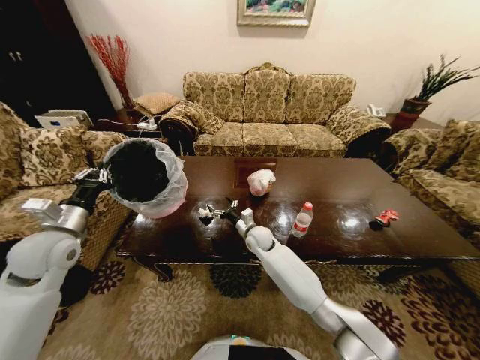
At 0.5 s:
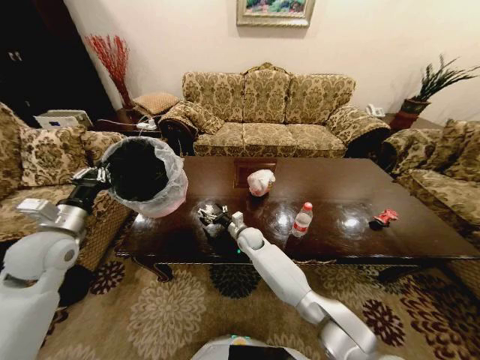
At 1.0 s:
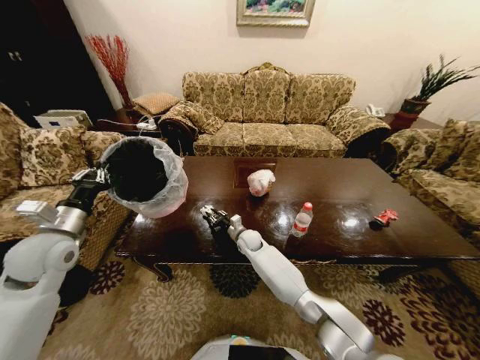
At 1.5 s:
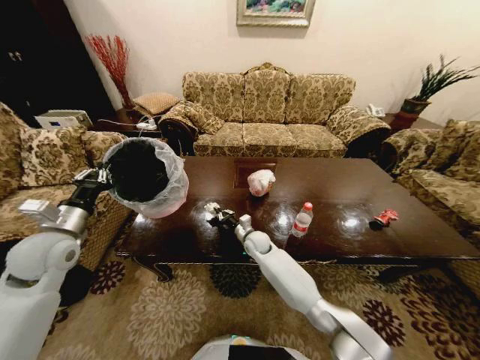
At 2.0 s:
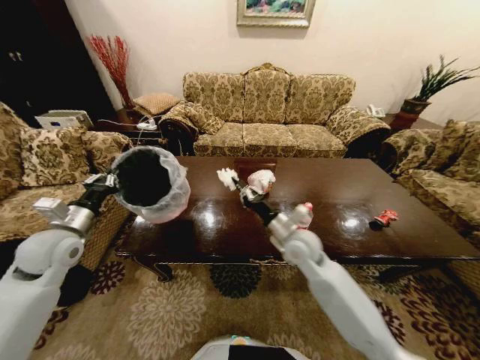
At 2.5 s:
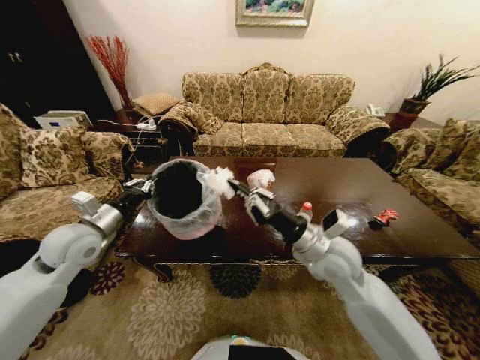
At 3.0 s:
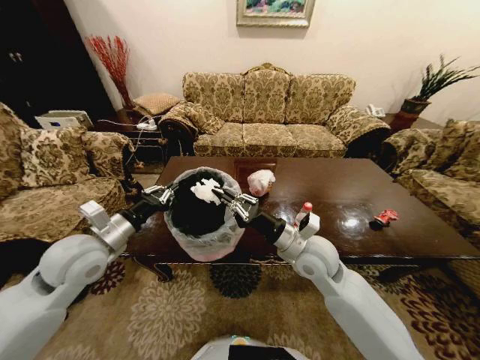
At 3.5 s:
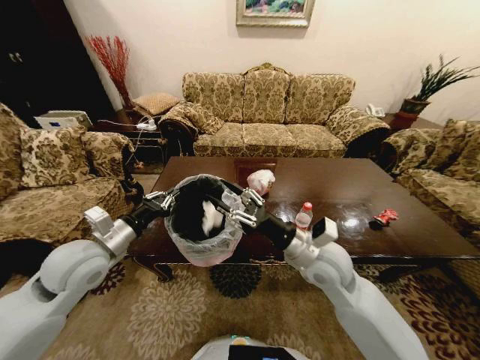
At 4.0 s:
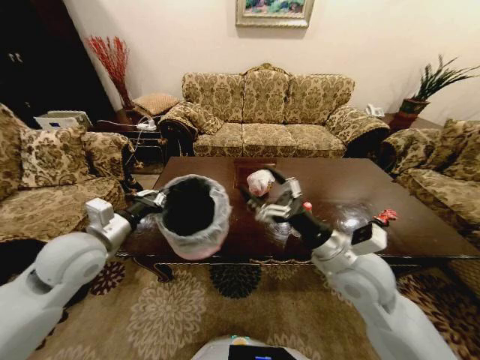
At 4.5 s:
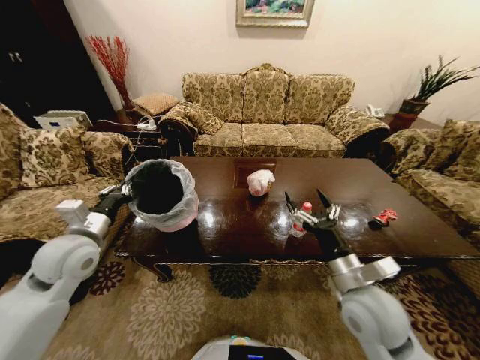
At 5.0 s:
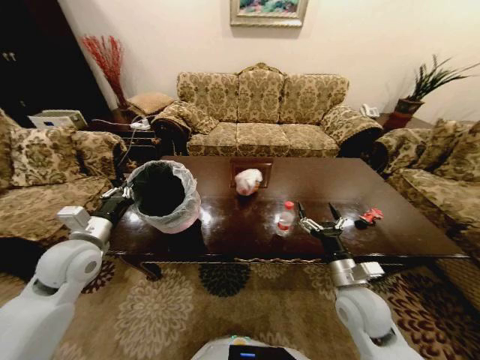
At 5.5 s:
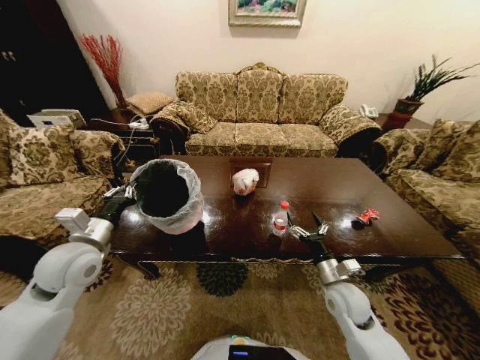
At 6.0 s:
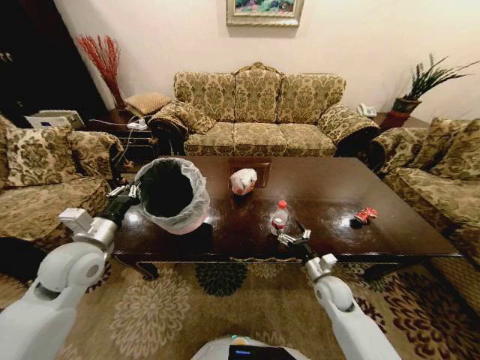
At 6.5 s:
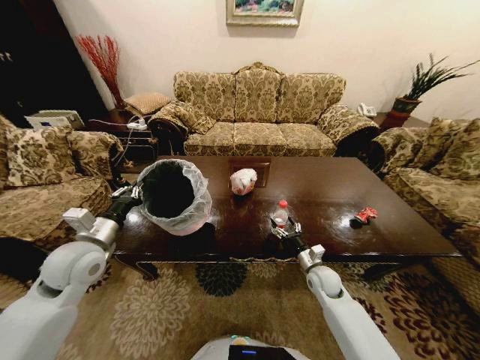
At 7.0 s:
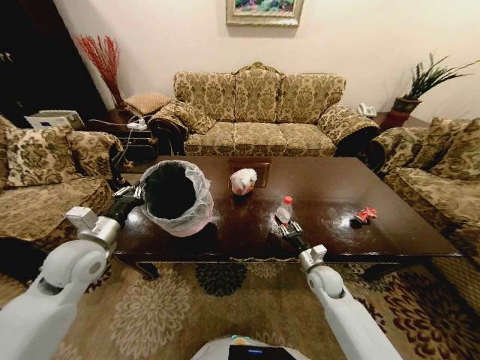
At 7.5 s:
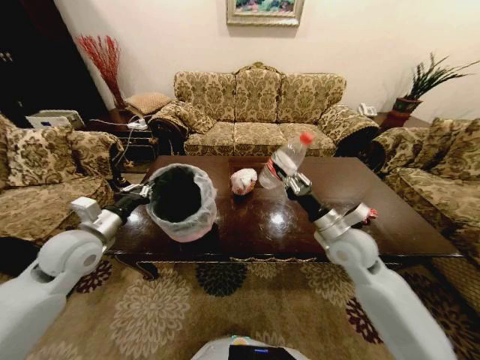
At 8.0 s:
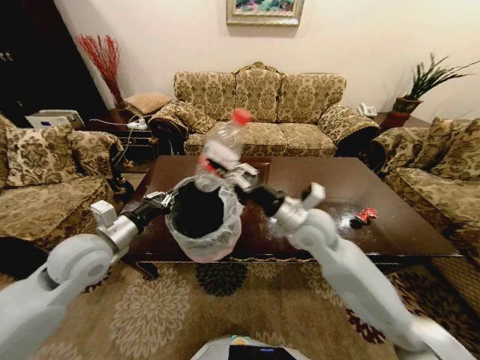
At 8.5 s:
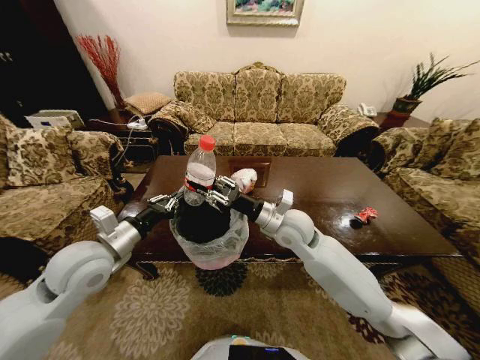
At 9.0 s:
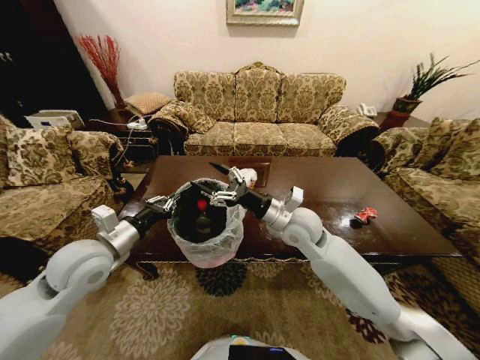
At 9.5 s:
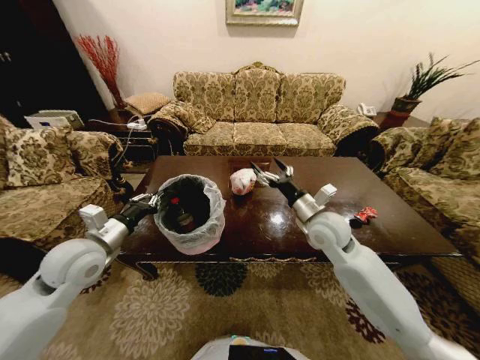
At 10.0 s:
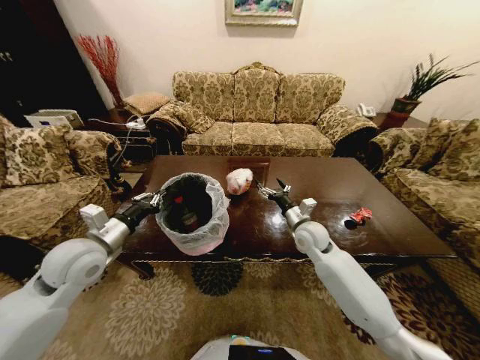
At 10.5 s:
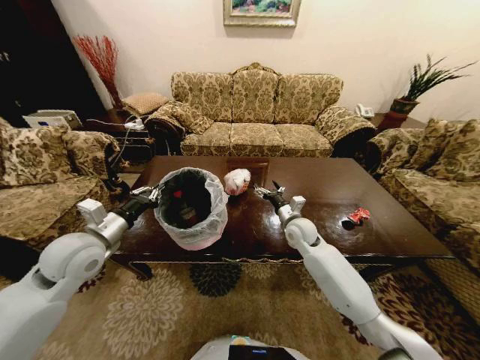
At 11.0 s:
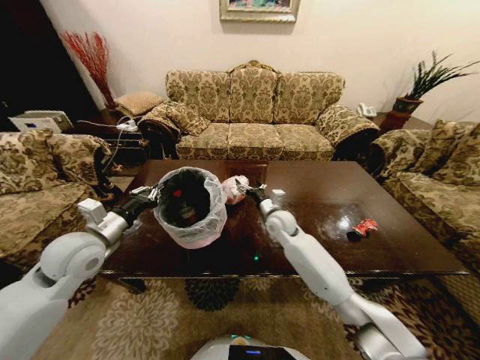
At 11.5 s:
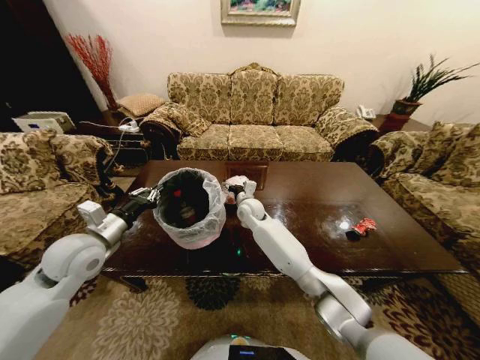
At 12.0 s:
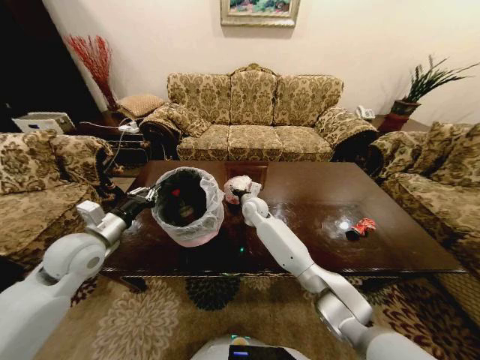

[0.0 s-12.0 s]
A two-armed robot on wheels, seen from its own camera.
Task of the whole recording: Move to the front of the table and place the trash on the table into the trash bin.
0.0 to 2.0 s: The right gripper travels upward, to the right and backward by roughly 15 cm, and closes its fingers.
2.0 to 4.0 s: The left gripper is displaced to the right by about 10 cm. Meanwhile the right gripper goes approximately 15 cm backward, upward and to the right, and opens its fingers.
4.0 to 6.0 s: The right gripper travels downward by some 25 cm.
6.0 to 8.0 s: The right gripper travels upward and to the left by about 30 cm, and closes.
8.0 to 10.0 s: The right gripper travels downward, forward and to the right by about 15 cm, and opens its fingers.
10.0 to 12.0 s: The right gripper heads to the left and forward, covering some 20 cm.

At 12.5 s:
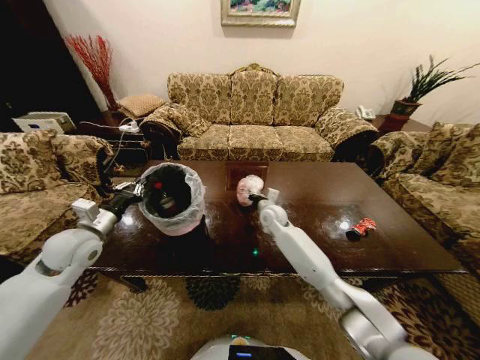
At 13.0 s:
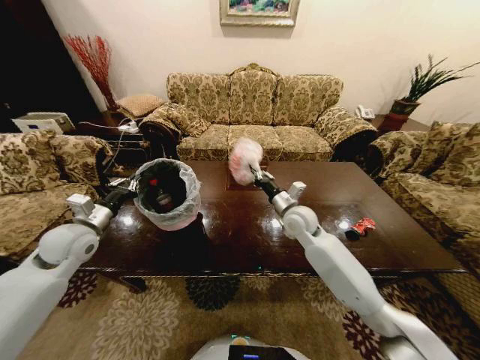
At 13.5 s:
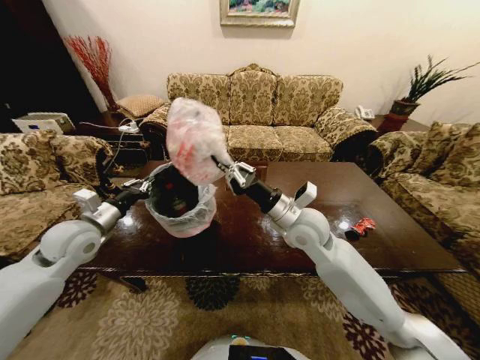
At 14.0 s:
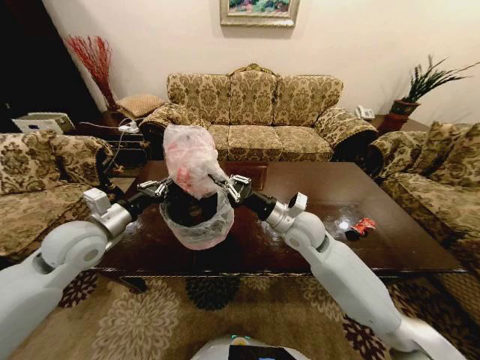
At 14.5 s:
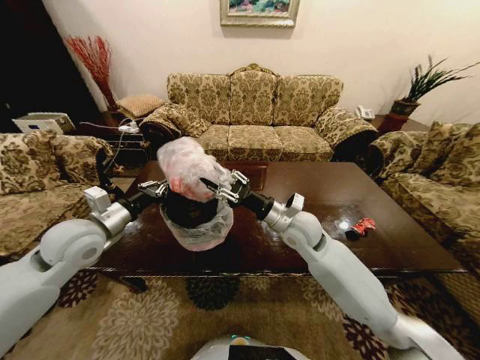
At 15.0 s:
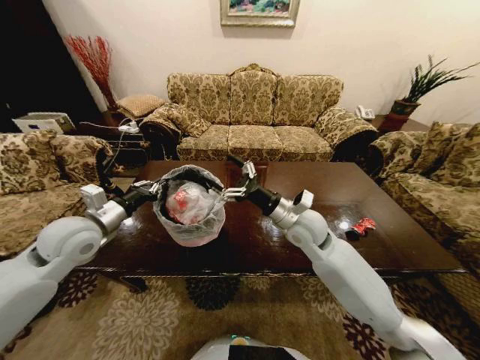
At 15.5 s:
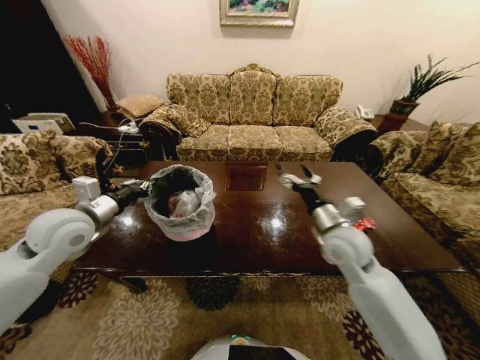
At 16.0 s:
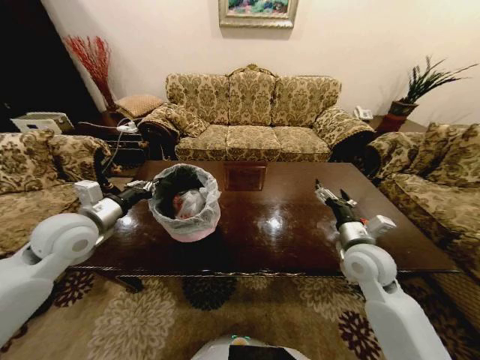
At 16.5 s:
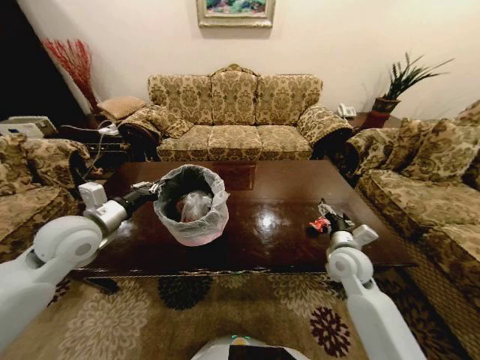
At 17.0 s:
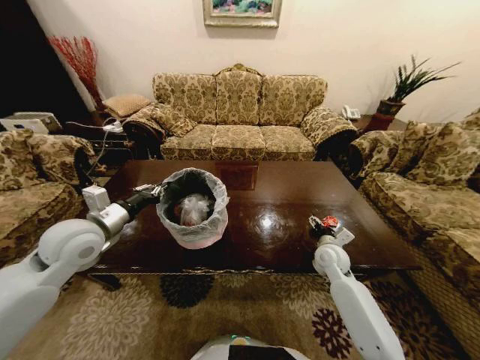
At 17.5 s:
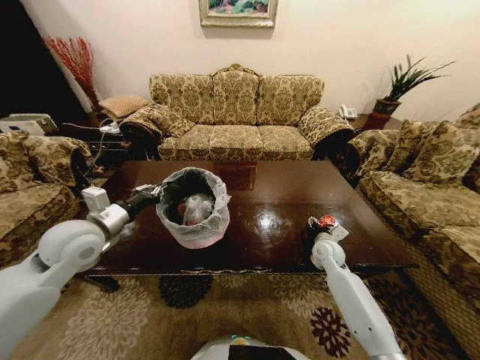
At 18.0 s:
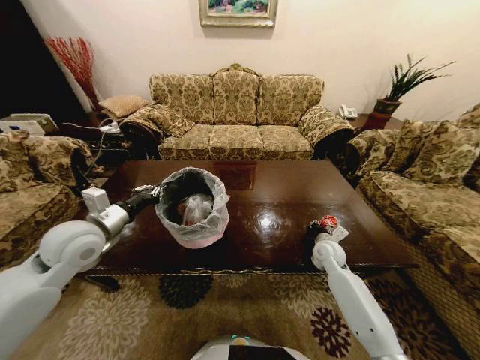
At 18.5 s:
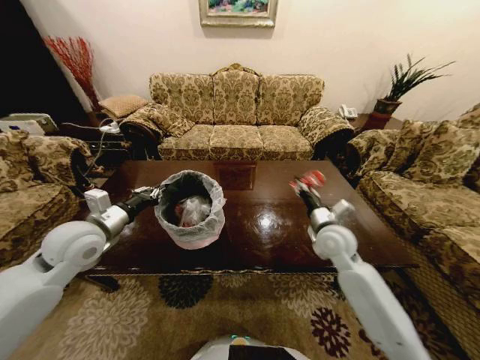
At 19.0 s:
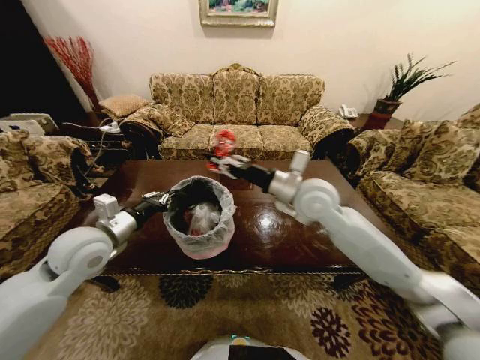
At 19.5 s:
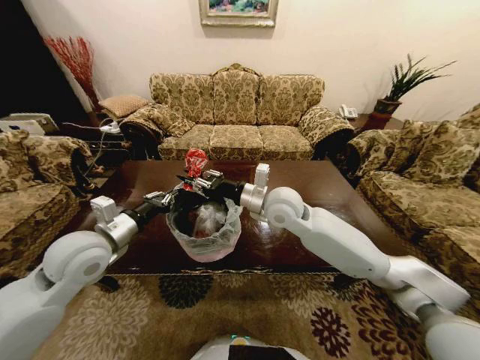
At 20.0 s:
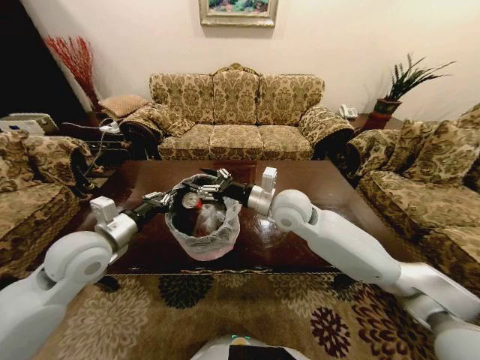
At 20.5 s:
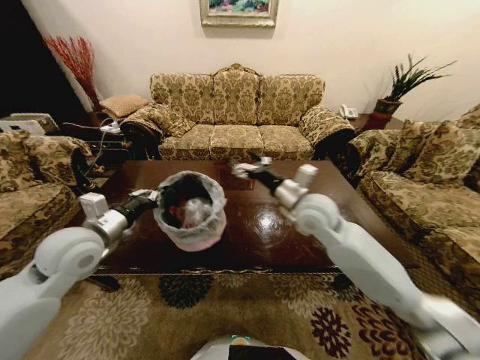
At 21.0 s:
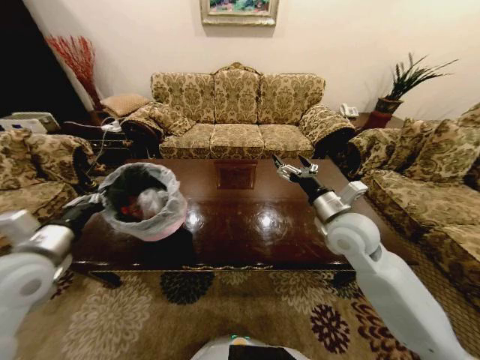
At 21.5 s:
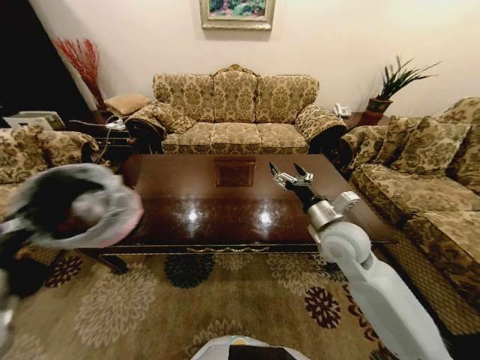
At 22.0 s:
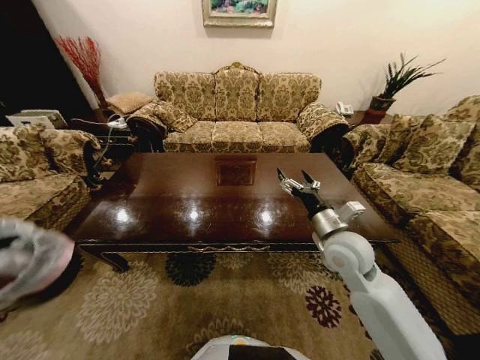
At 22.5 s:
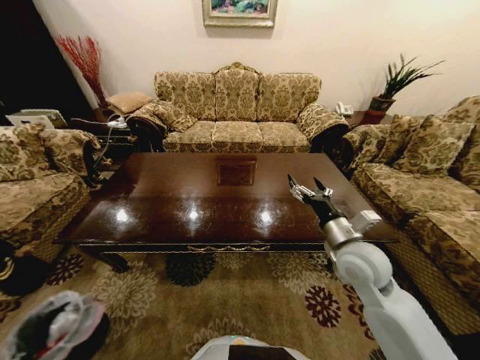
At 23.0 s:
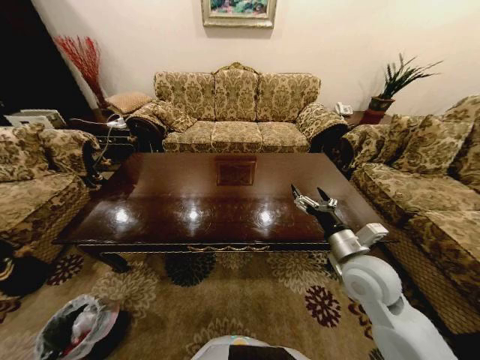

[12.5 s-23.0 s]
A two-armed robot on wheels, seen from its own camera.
Task of the whole recording: Move to the front of the table and place the trash on the table into the trash bin.
12.5 to 14.5 s: The left gripper moves upward and to the right, about 5 cm, while the right gripper goes approximately 20 cm backward and upward.
14.5 to 16.5 s: The right gripper shifts about 20 cm to the right and downward, and opens.
16.5 to 19.0 s: The right gripper moves upward and to the left, approximately 25 cm, and closes its fingers.
19.0 to 21.0 s: The right gripper travels to the right, downward and backward by about 10 cm, and opens its fingers, while the left gripper goes about 10 cm backward and to the left.
21.0 to 23.0 s: The left gripper moves downward, about 50 cm; the right gripper travels backward and downward by roughly 10 cm.

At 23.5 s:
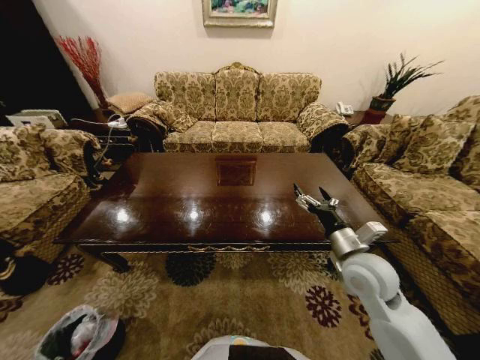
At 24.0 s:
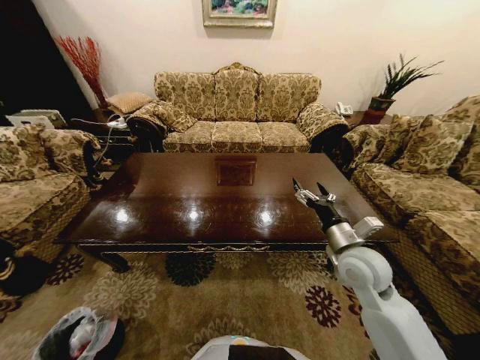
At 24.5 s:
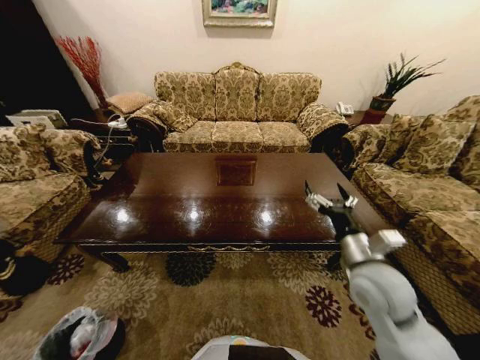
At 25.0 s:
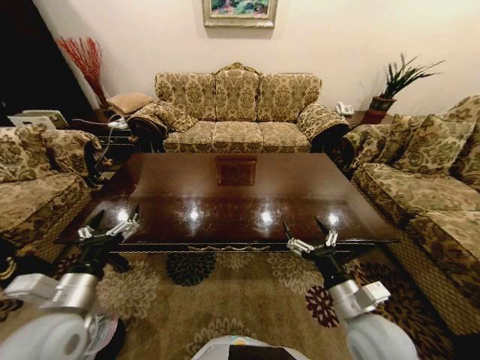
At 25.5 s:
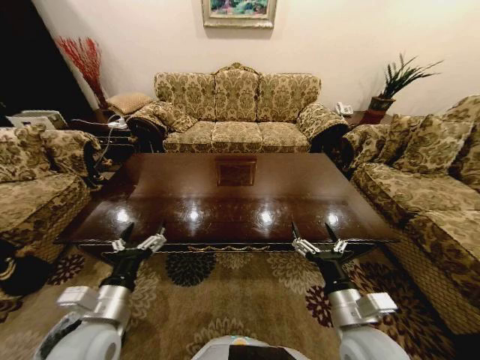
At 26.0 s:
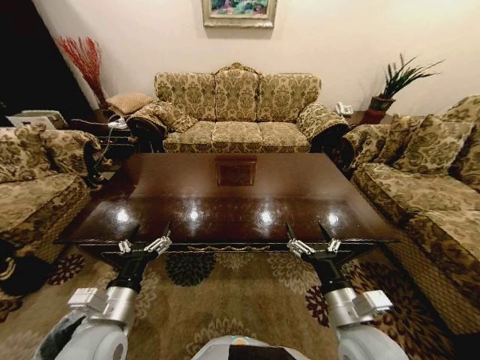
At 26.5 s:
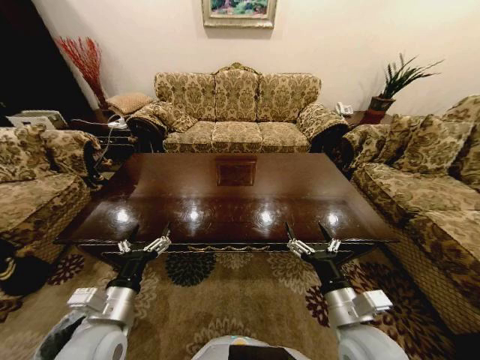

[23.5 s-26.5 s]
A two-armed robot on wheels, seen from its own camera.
Task of the whole recording: Move to the front of the table and place the trash on the table into the trash bin.
23.5 to 25.0 s: The left gripper shifts some 50 cm upward and to the right, and opens. The right gripper shifts some 10 cm backward.
25.0 to 26.5 s: The left gripper heads to the right, covering roughly 5 cm.
